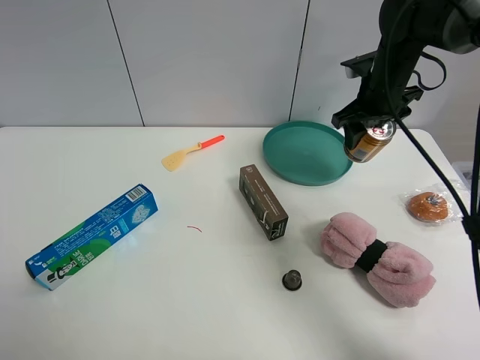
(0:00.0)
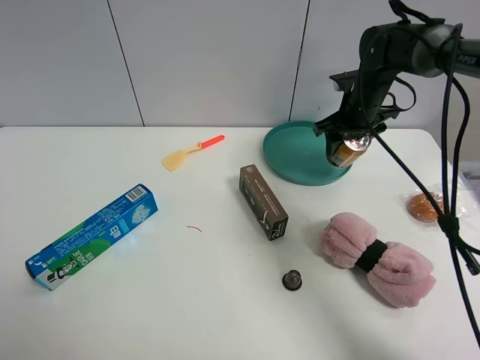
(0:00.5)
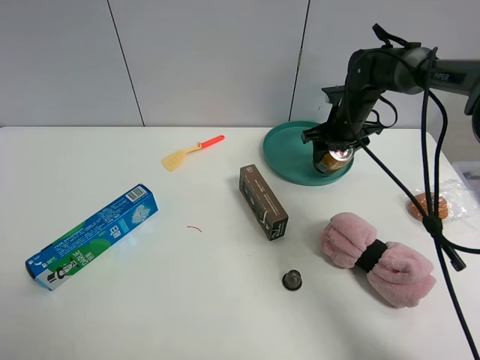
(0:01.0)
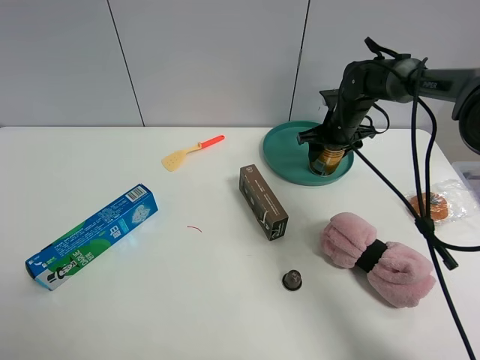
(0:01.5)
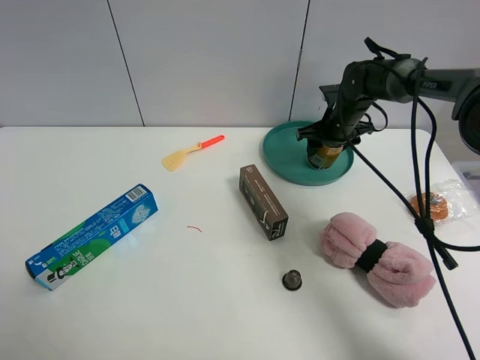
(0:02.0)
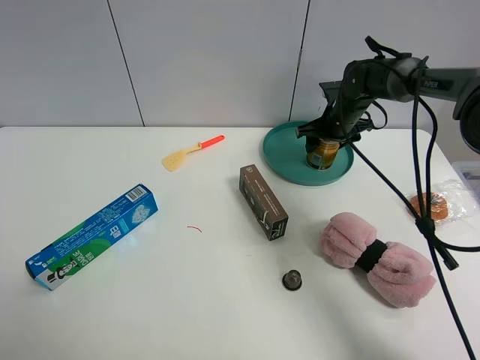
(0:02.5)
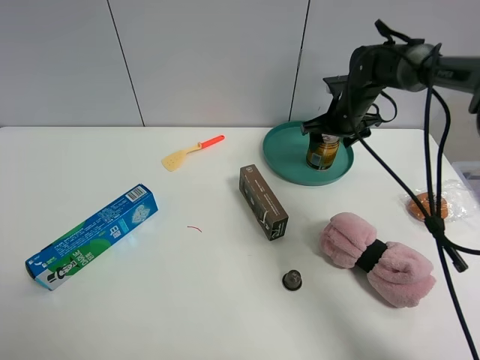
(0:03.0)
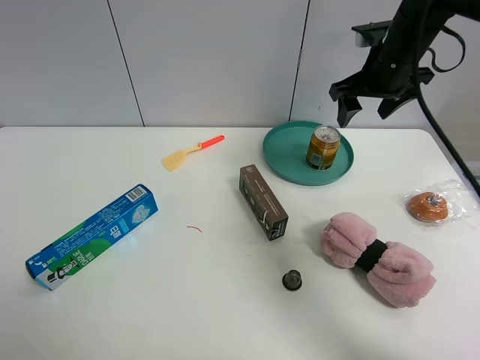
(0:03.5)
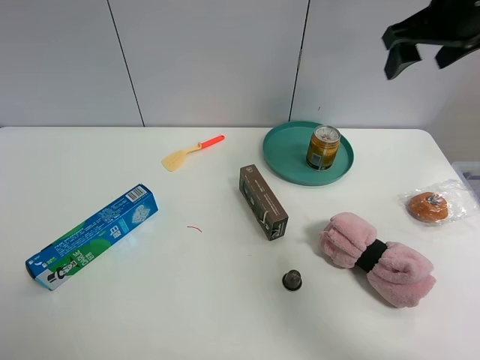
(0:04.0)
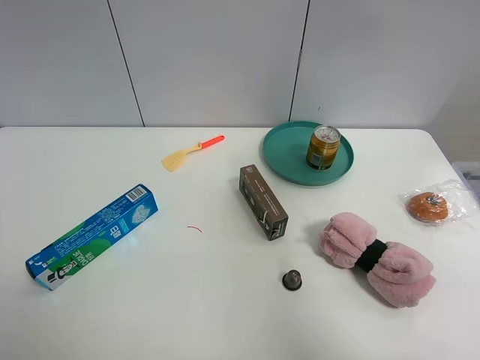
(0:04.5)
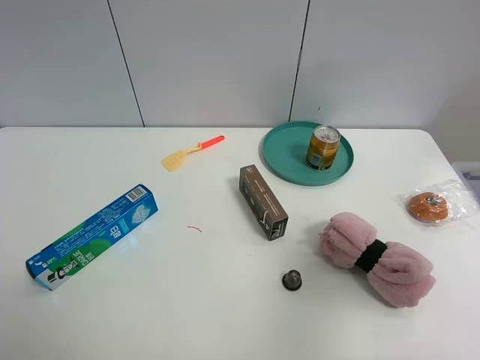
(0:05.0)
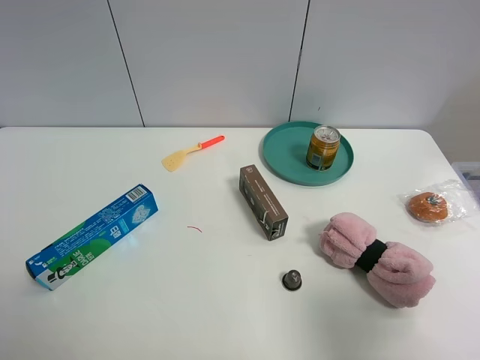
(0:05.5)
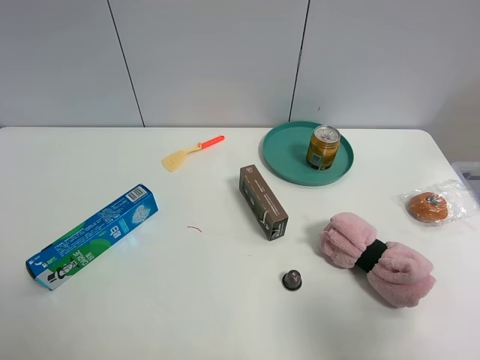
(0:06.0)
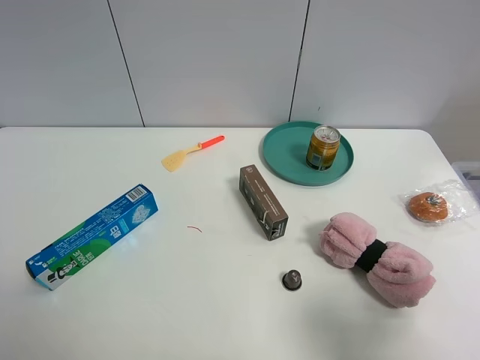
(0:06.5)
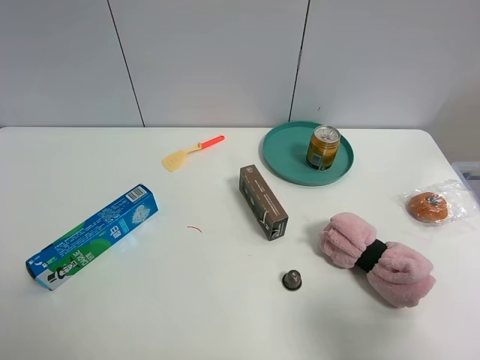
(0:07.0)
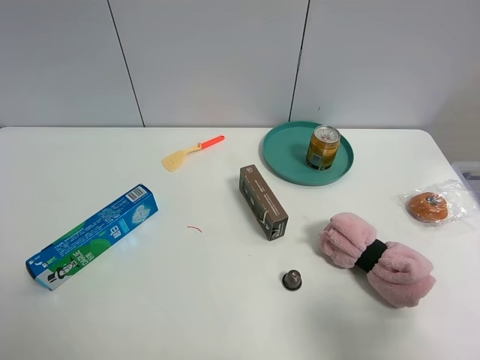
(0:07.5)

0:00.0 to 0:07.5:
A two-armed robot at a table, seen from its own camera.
Task of the whole recording: the gripper move the object.
Step, 0:00.0 to 0:03.0: Place the red bull into the green plate with the right gripper.
0:00.0 to 0:02.0: The right gripper moves downward and forward, approximately 10 cm.
0:02.0 to 0:04.0: The right gripper goes approximately 25 cm upward and backward.
0:04.0 to 0:05.5: The right gripper moves backward, roughly 35 cm.

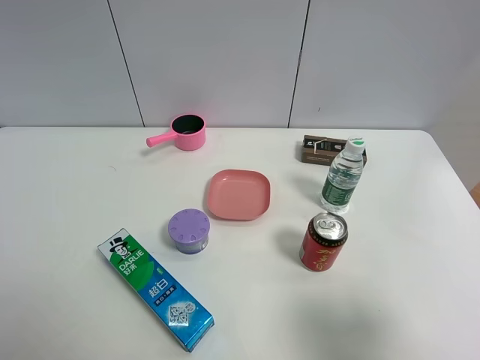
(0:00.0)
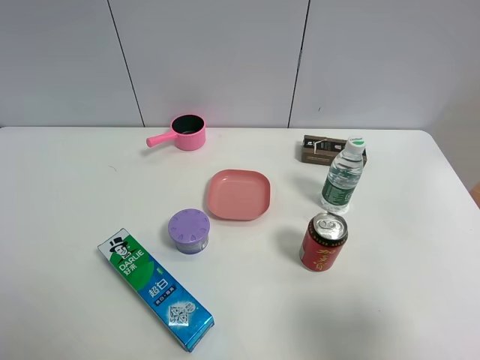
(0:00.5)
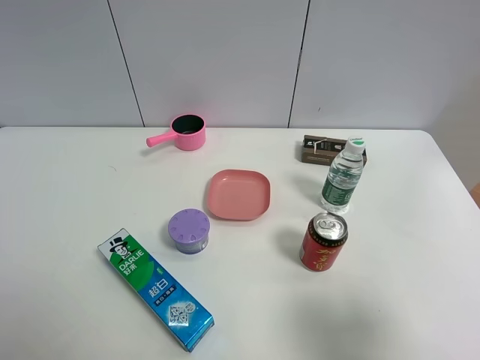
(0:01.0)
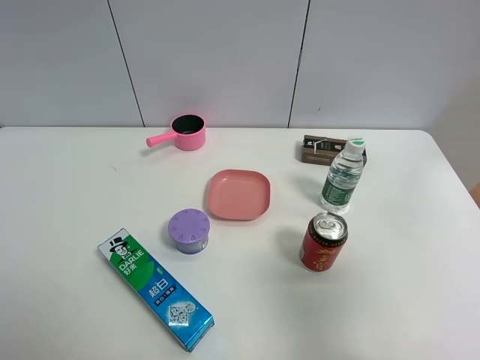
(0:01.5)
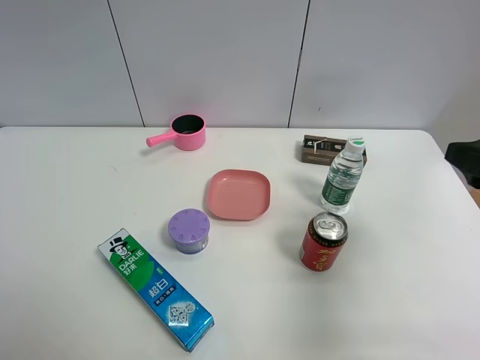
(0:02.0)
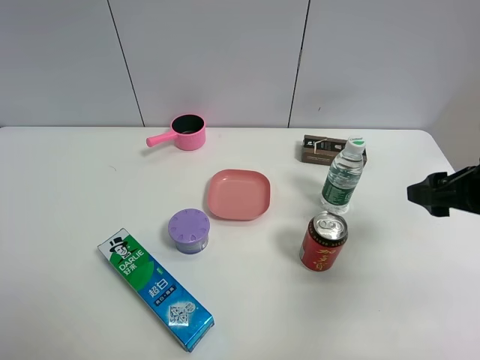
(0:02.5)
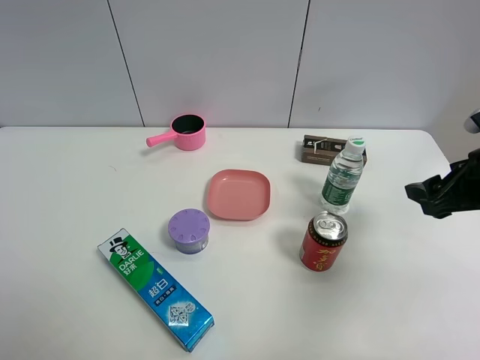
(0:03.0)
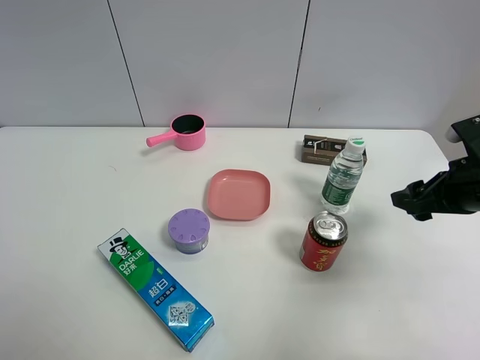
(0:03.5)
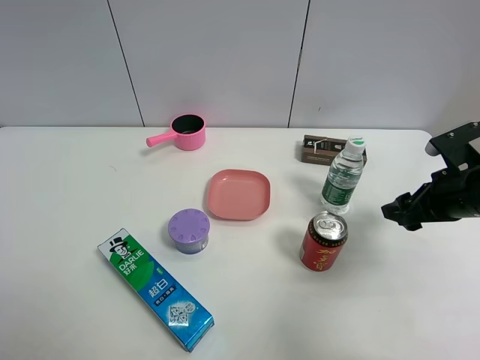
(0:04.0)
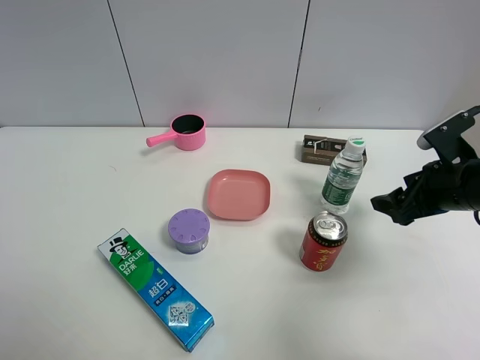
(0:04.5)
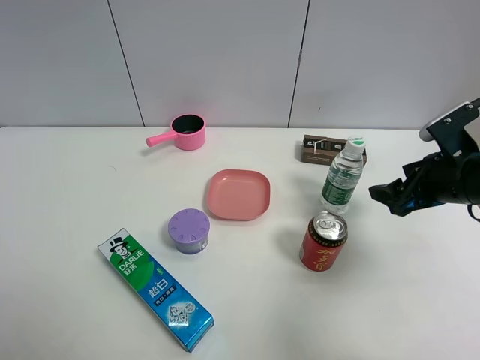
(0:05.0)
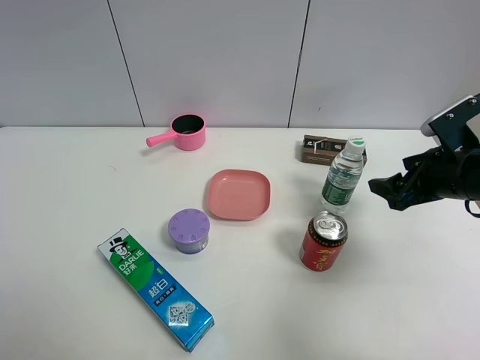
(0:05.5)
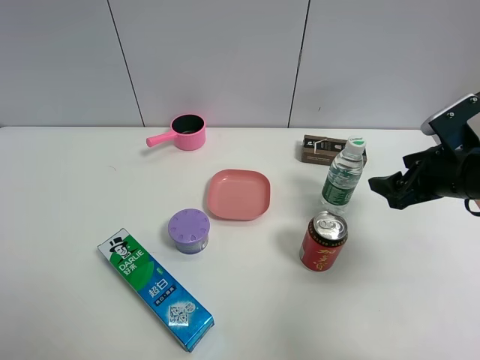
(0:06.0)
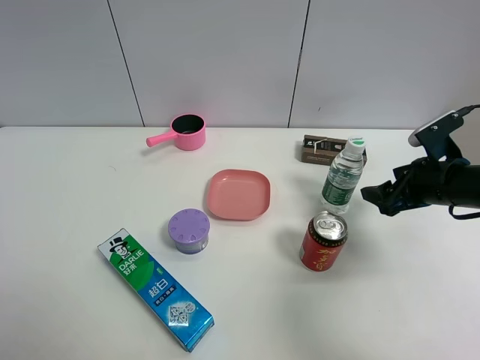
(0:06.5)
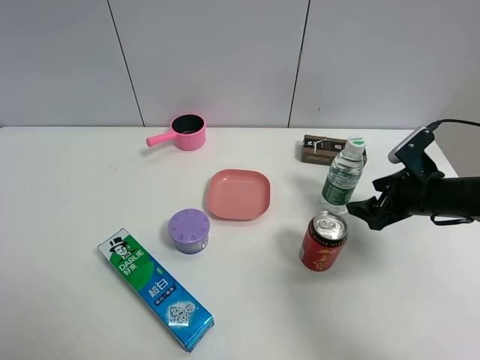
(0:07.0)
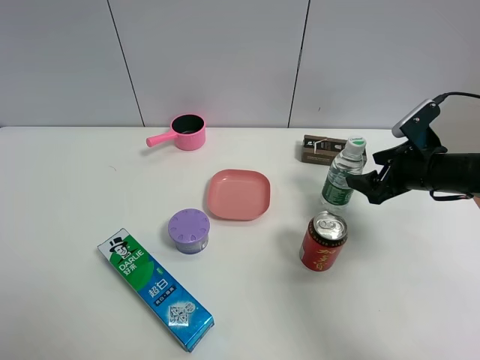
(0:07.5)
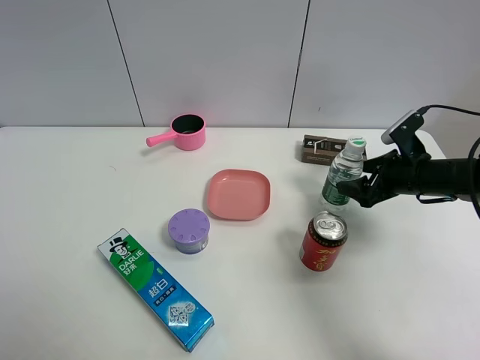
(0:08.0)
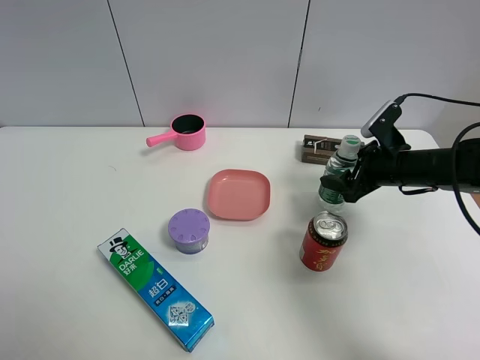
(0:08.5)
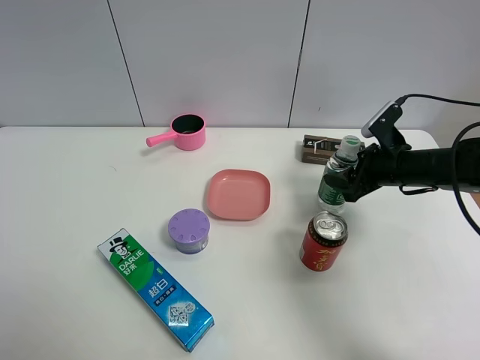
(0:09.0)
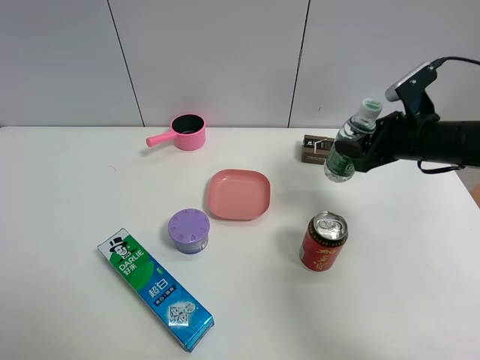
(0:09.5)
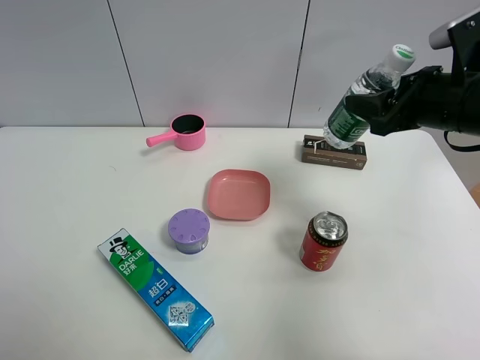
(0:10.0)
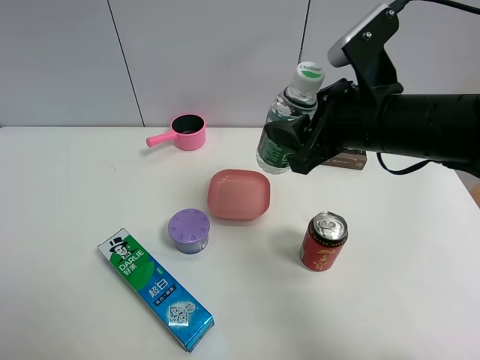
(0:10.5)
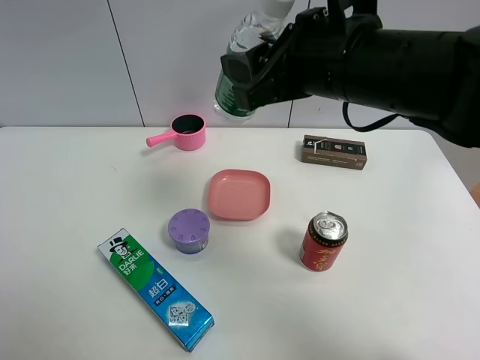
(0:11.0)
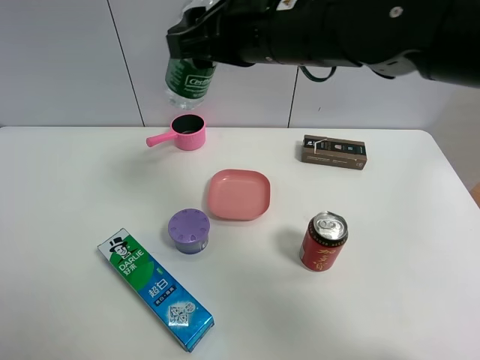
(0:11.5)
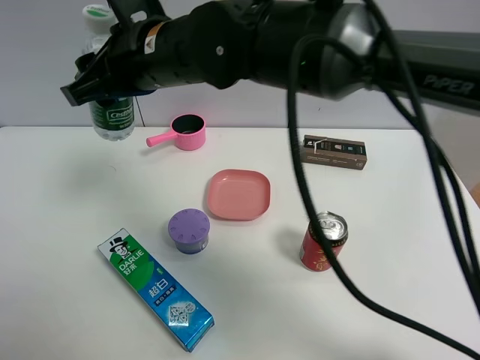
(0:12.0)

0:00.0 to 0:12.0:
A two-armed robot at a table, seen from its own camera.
Task of the whole recording: the gripper move the object.
Step, 0:00.0 to 0:09.0: Grasp the YiBao mineral water with the right gripper.
0:00.0 to 0:02.0: The right gripper goes about 15 cm forward.
0:02.0 to 0:04.0: The right gripper is displaced downward and forward by about 15 cm.
0:04.0 to 0:06.0: The grippers stay close to where they were, moving slightly.
0:06.0 to 0:08.0: The right gripper goes some 10 cm downward and forward.
0:08.0 to 0:10.0: The right gripper heads upward, covering roughly 15 cm, and closes up.
0:10.0 to 0:12.0: The right gripper is displaced to the left by about 35 cm.

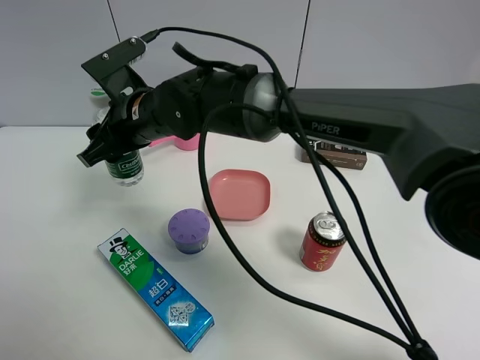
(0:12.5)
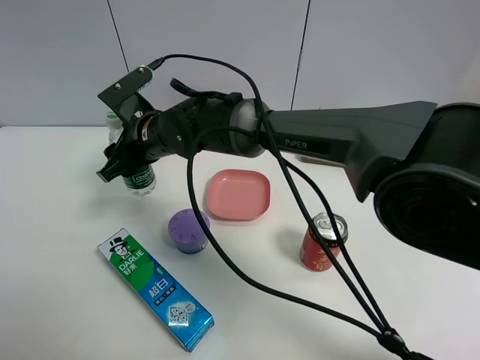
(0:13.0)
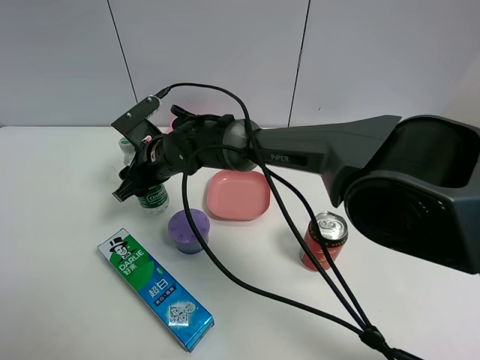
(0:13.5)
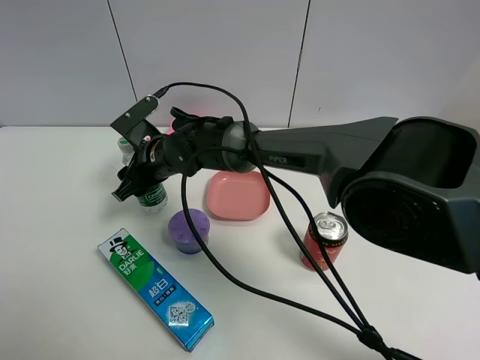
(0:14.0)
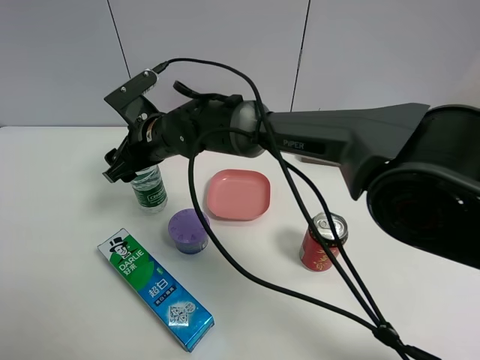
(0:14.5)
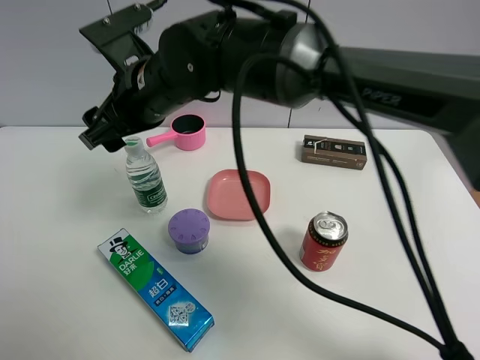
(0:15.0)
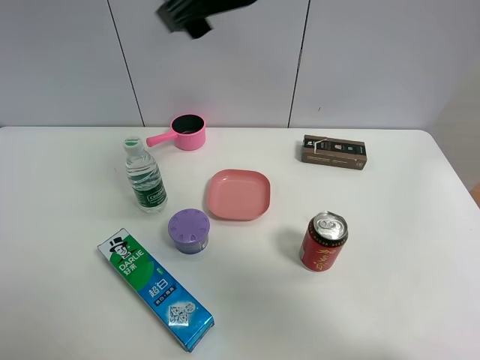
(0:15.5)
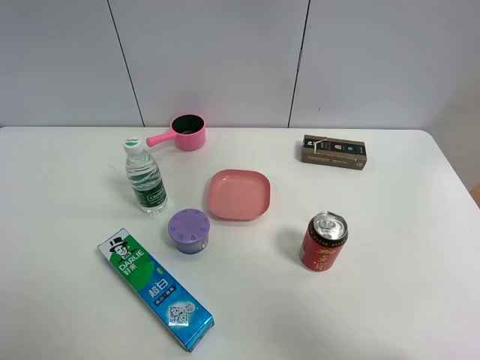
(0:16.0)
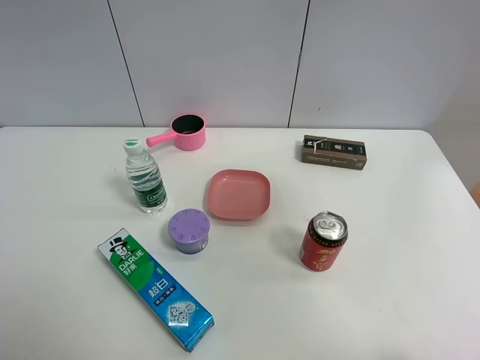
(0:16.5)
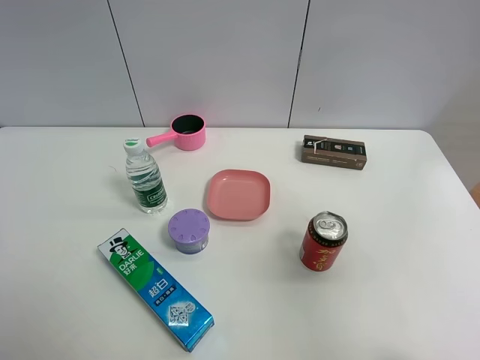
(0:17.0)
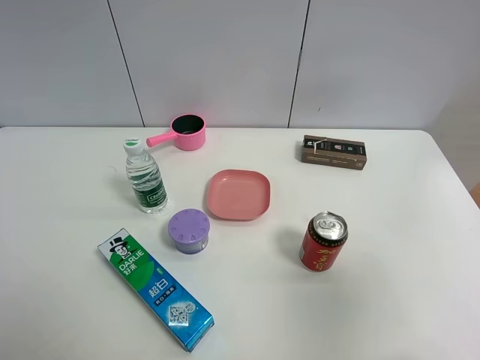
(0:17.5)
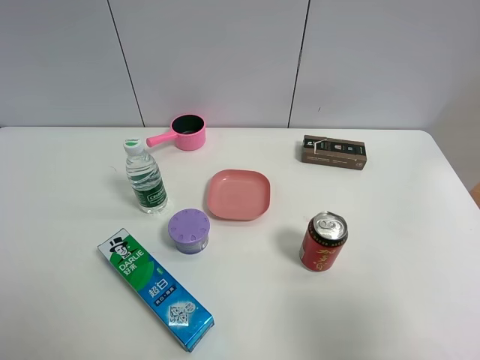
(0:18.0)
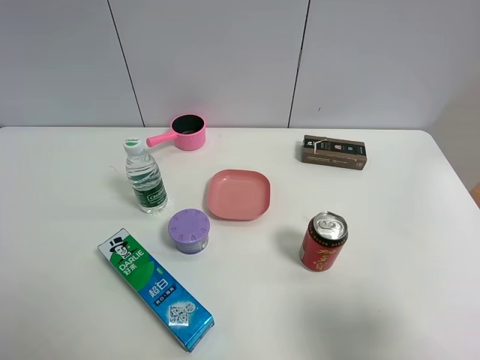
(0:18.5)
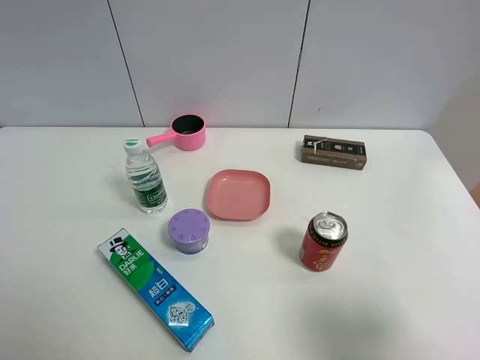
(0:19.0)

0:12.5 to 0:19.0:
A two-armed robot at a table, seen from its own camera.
Task of the whole recording: the gripper move the object.
0:12.5 to 0:14.5: The right gripper opens its fingers.
0:14.5 to 0:17.0: The right gripper is displaced to the right, backward and upward by some 60 cm.
0:17.0 to 0:19.0: The right gripper heads downward, covering about 20 cm.
